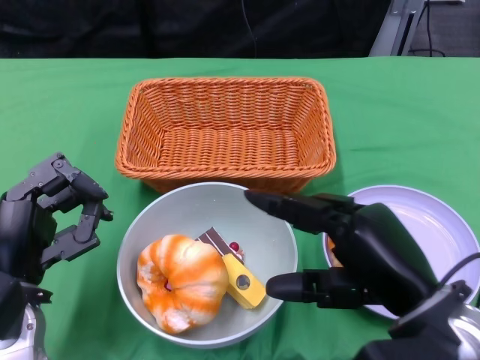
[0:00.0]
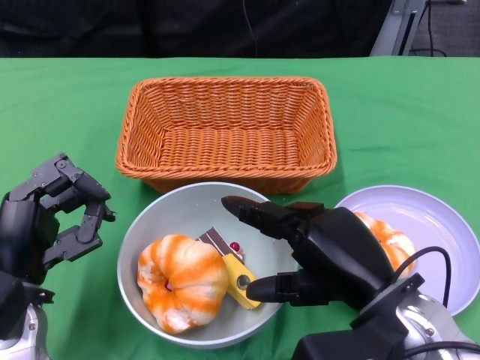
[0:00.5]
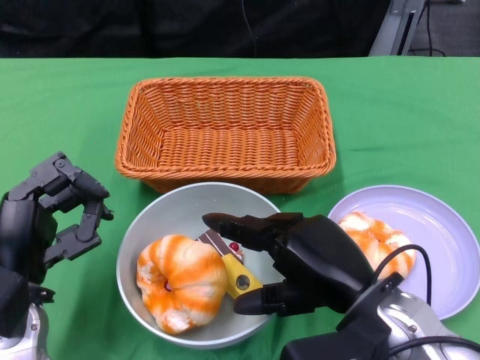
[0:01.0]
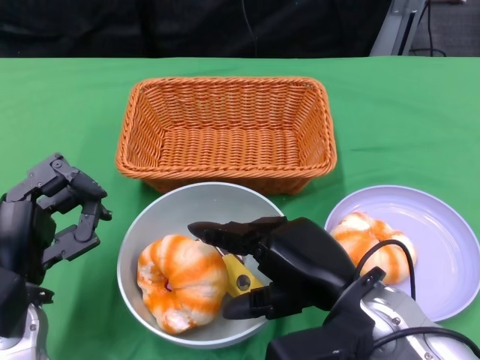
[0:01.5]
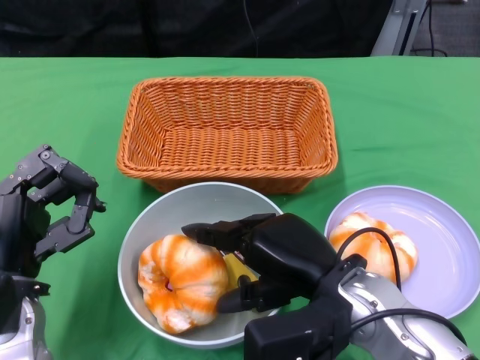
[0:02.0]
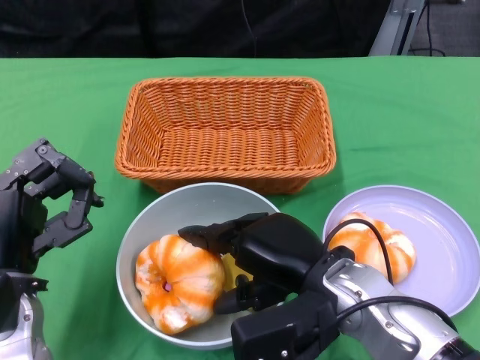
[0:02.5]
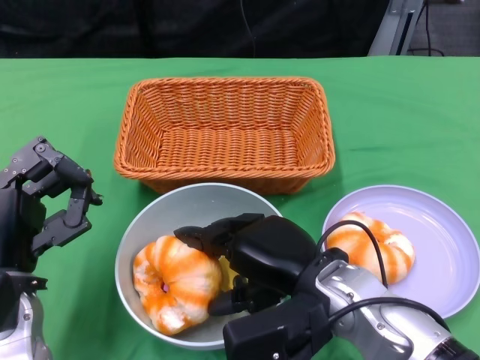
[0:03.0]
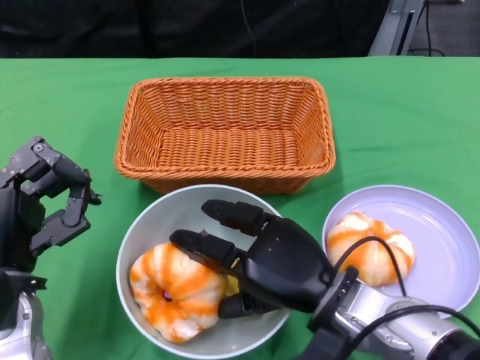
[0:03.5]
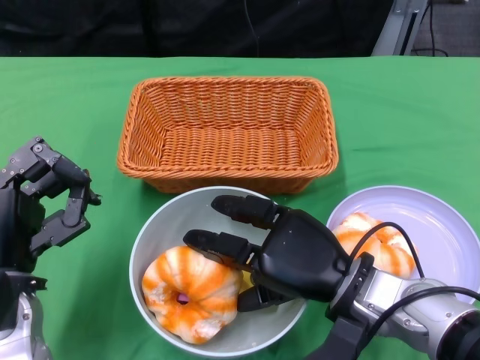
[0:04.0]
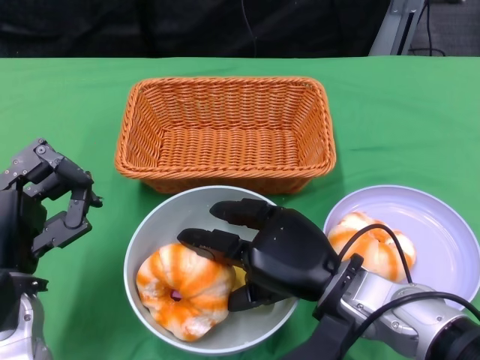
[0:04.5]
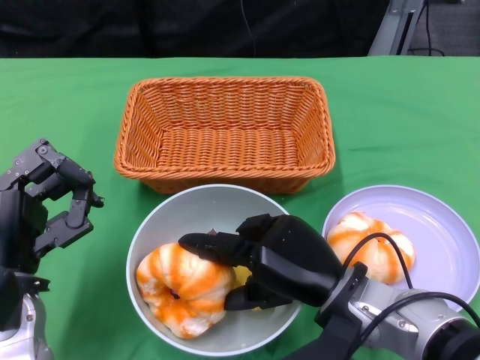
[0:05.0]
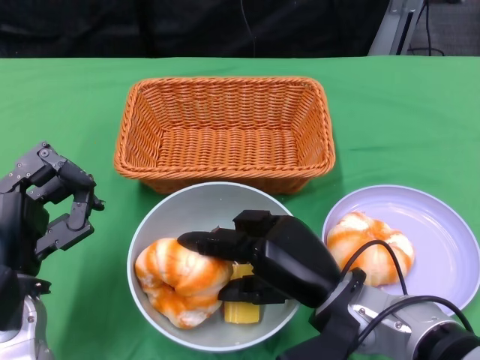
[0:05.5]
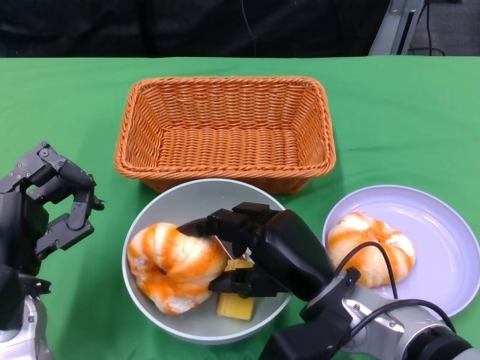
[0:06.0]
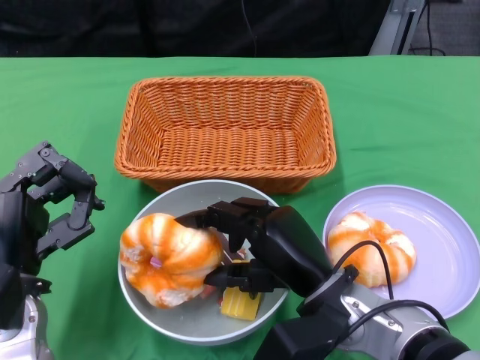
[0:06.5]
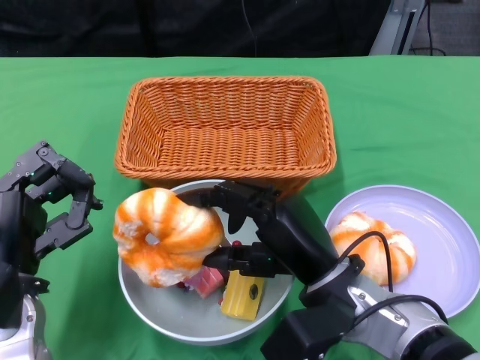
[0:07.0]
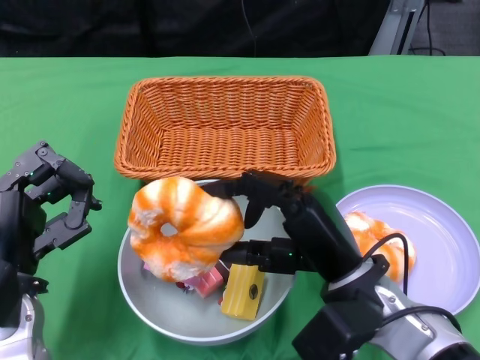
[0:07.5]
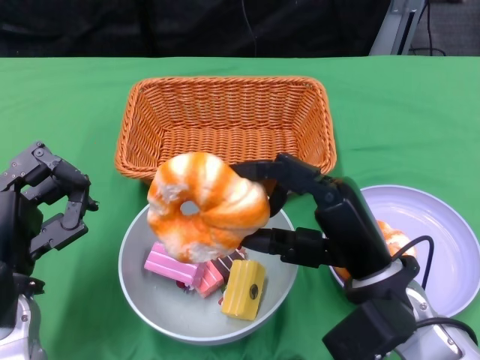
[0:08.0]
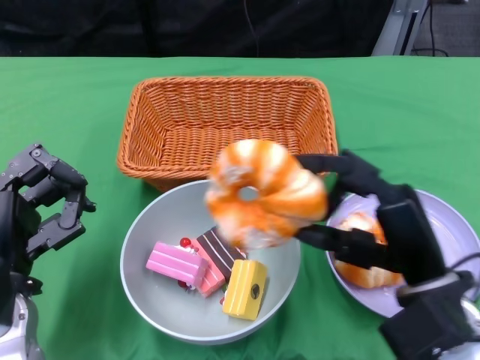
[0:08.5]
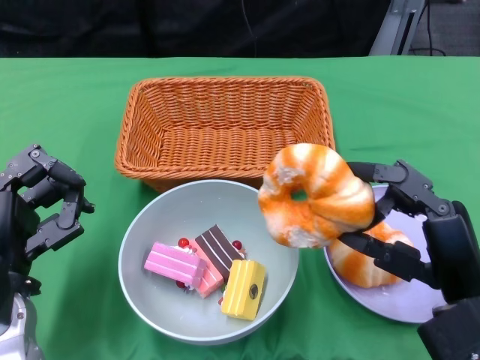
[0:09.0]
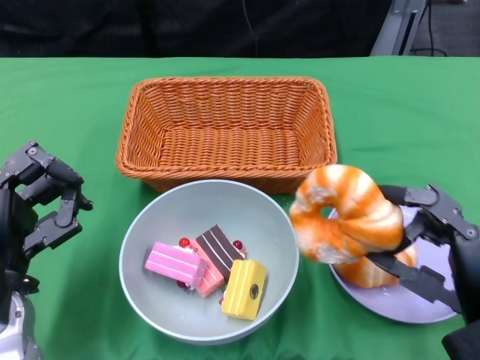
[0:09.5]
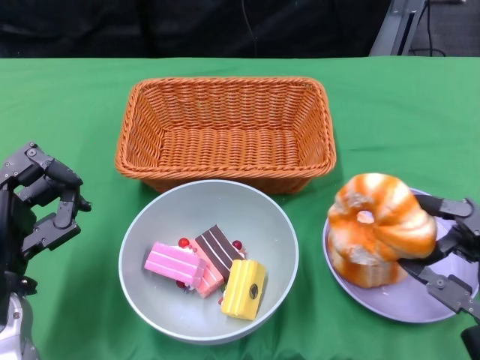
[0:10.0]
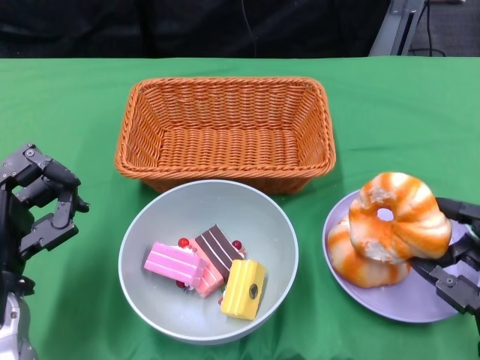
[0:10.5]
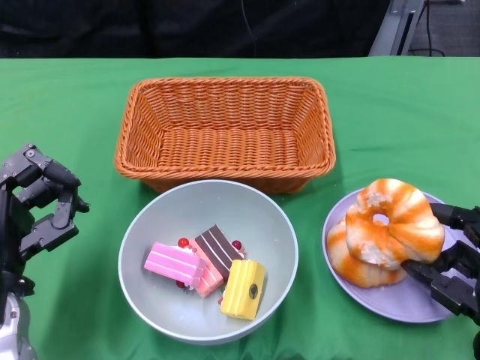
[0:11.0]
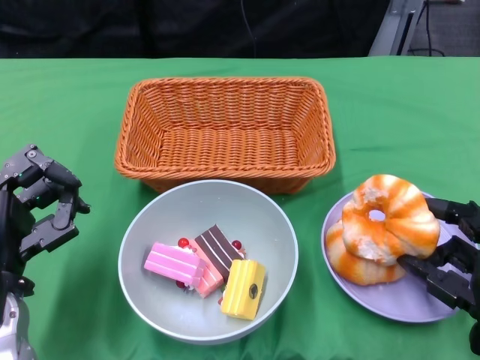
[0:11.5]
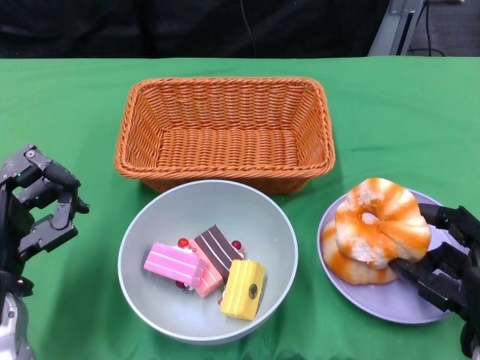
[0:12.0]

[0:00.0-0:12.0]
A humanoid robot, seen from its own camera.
0:00.0 to 0:02.0: The right hand heads to the left, covering approximately 5 cm.
0:06.0 to 0:08.0: The right hand ends up about 5 cm from where it was.
0:08.0 to 0:10.0: The right hand goes roughly 10 cm to the right and backward.

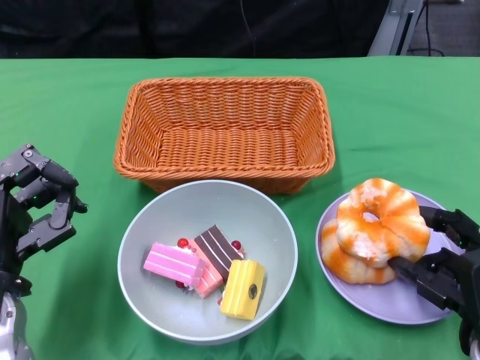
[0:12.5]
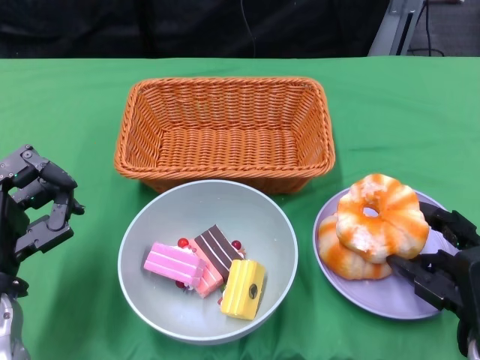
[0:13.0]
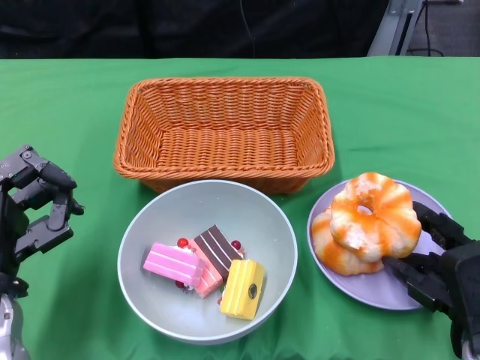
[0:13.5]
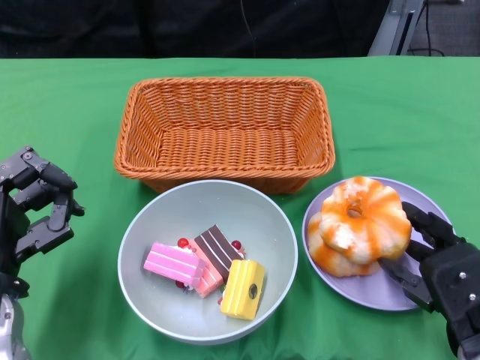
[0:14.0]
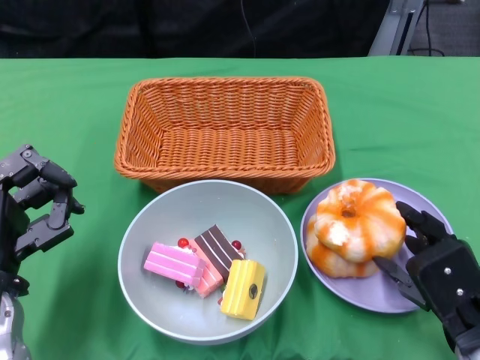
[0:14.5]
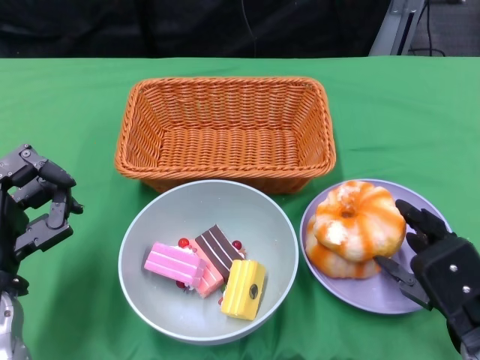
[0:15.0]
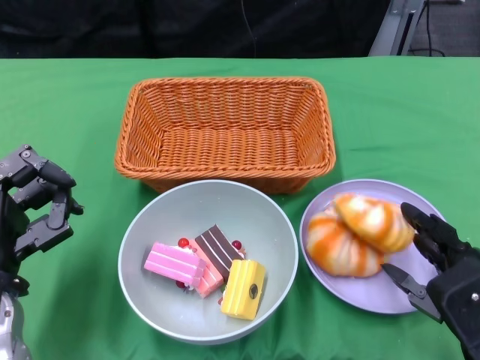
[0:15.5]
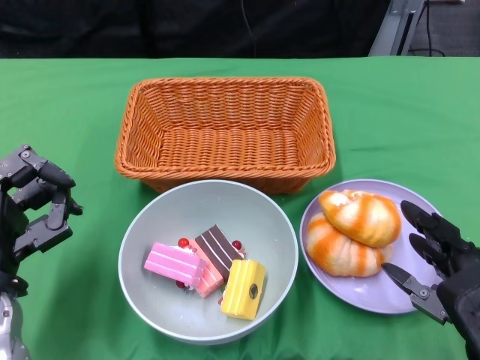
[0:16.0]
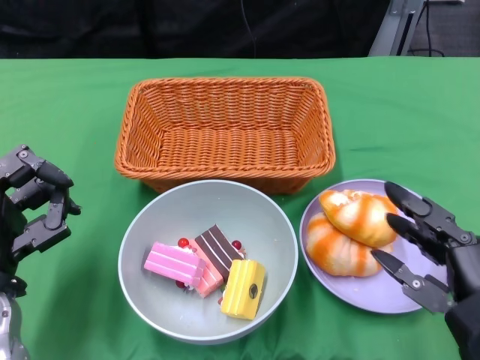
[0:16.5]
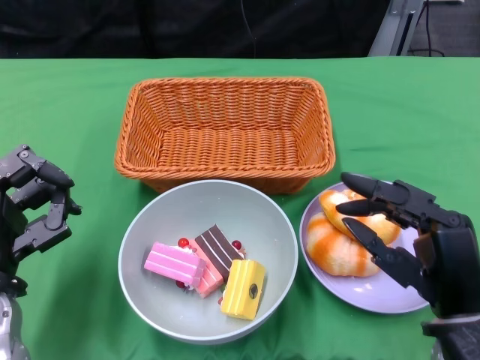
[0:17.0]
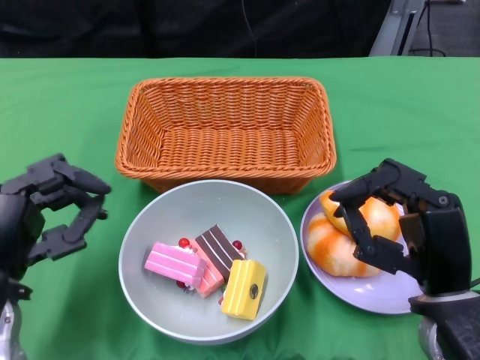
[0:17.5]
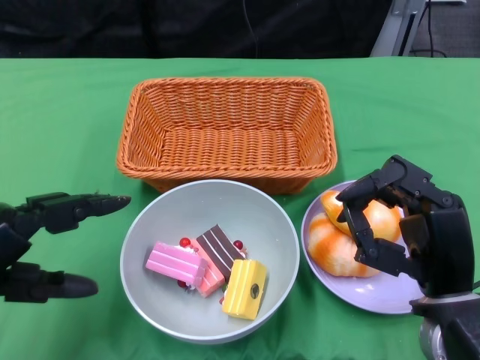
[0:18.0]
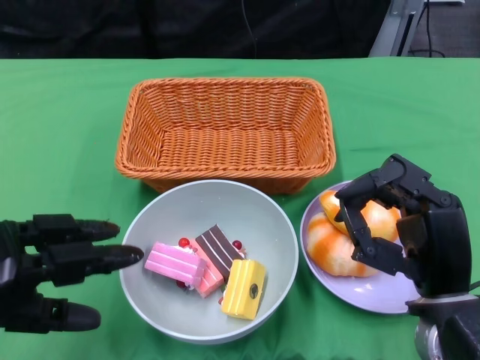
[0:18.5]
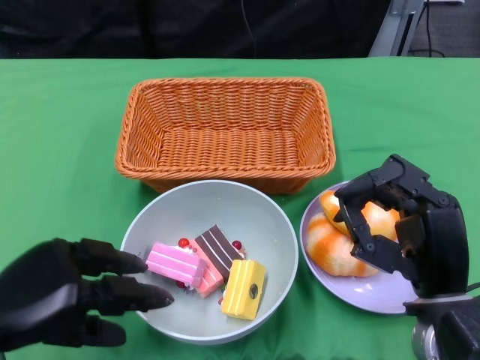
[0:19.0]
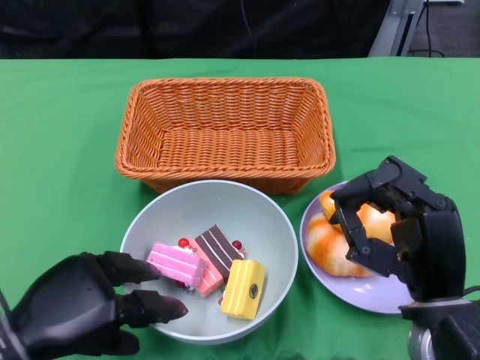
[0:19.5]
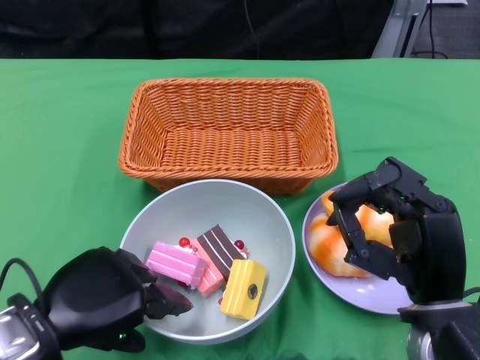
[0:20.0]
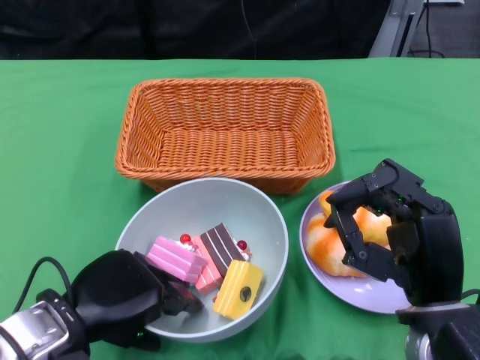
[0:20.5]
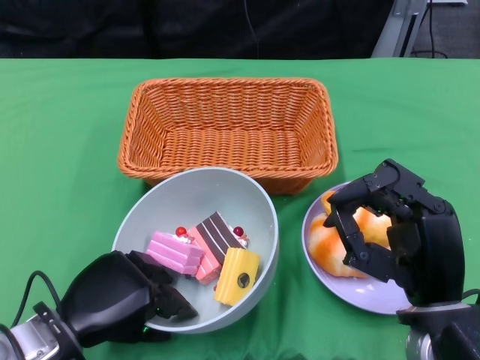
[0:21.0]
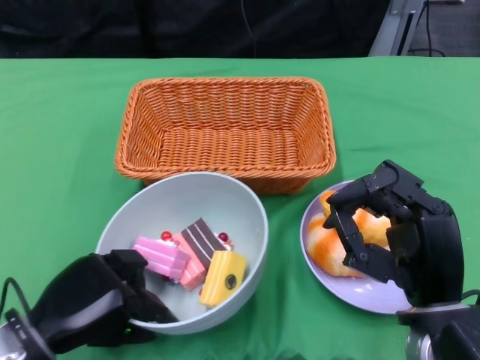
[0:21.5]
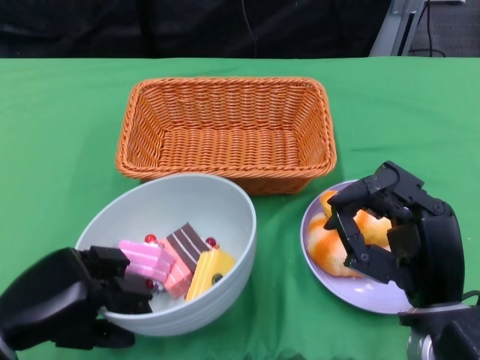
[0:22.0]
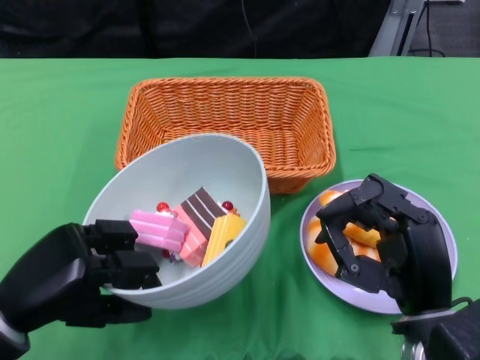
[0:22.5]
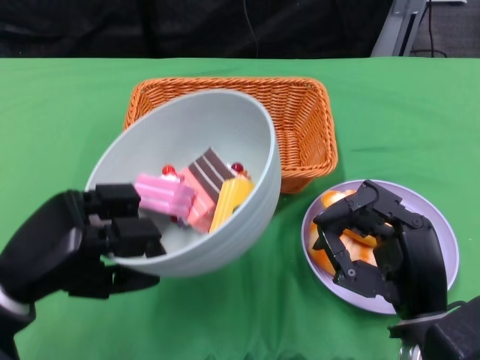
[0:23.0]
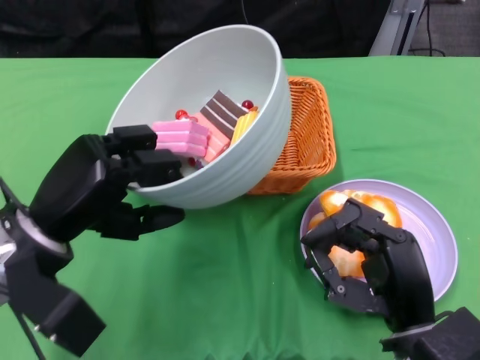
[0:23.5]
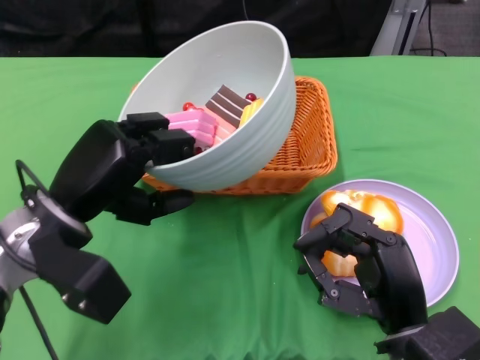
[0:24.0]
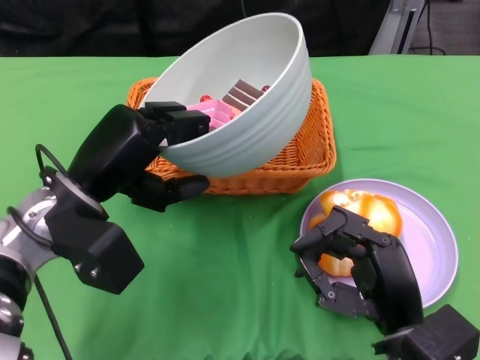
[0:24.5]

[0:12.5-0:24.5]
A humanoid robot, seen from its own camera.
Step, 0:12.5 to 0:15.5: Pick up the bread with the right gripper and place it on the plate.
Step, 0:16.0 to 0:21.0: Grasp the bowl with the left gripper.
0:12.5 to 0:14.5: There are only small adjustments of the hands.
0:16.5 to 0:18.5: The left hand heads backward, covering approximately 5 cm. Meanwhile the right hand changes place by approximately 5 cm.
0:18.5 to 0:20.5: The left hand shifts about 10 cm to the right.
0:22.5 to 0:24.5: The left hand is displaced forward and to the right by about 10 cm.

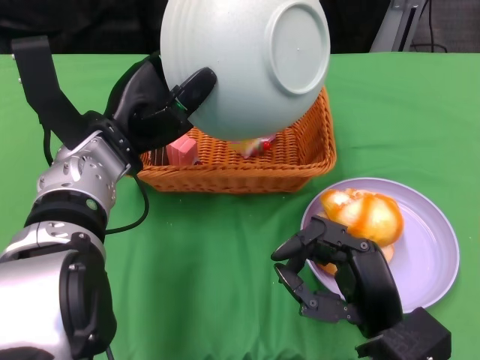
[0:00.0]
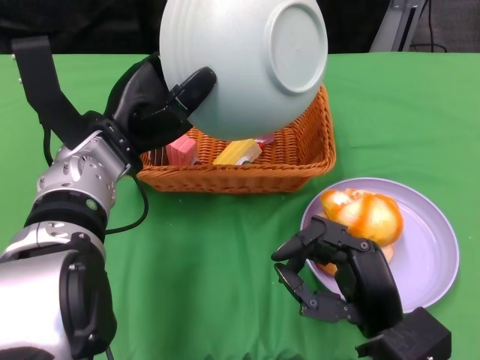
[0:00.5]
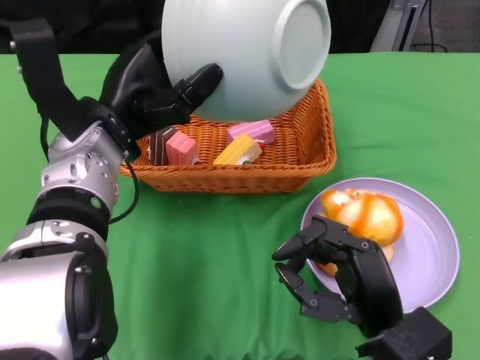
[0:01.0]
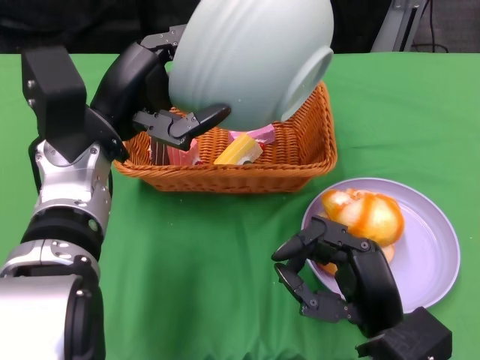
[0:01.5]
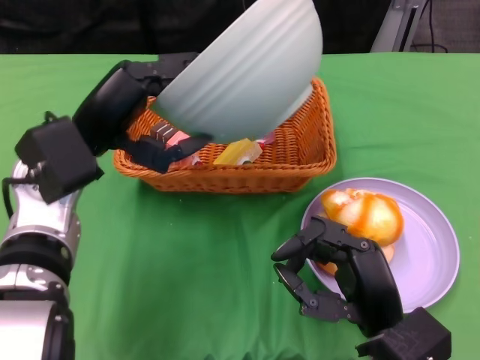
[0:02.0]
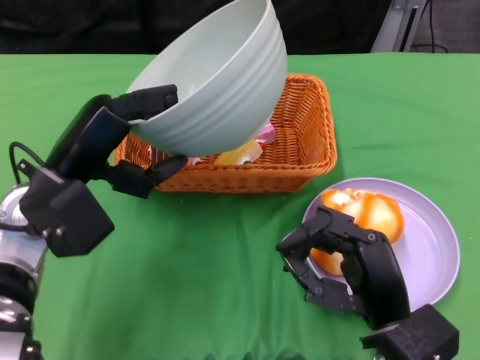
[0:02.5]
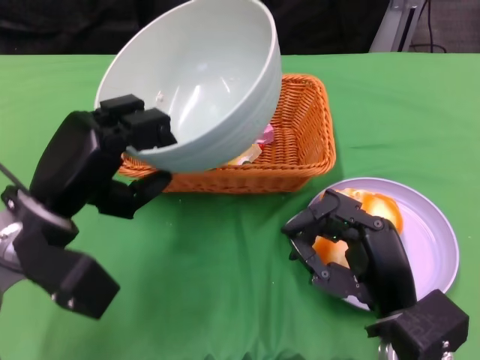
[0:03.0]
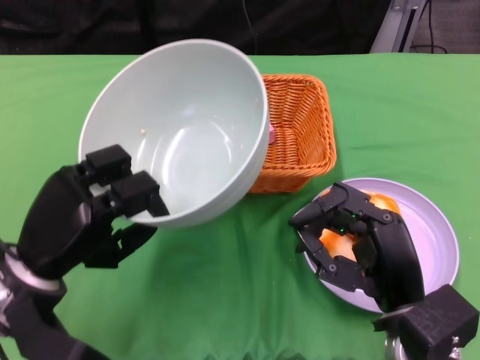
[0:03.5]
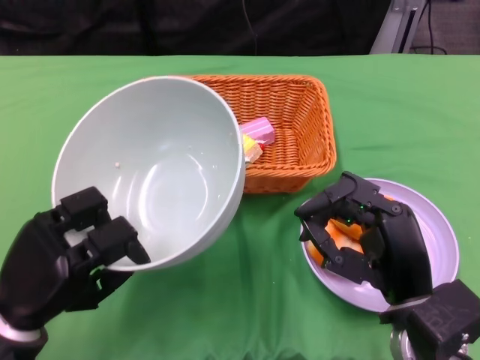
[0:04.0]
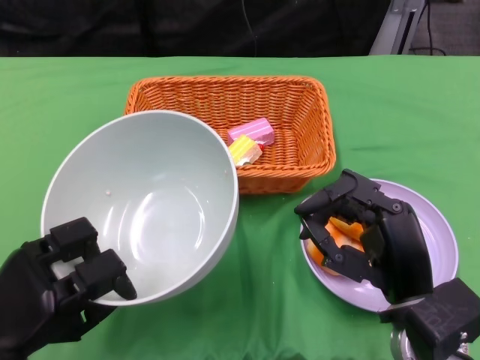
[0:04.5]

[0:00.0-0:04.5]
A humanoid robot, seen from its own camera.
0:02.0 to 0:04.5: The left hand moves backward, downward and to the left, approximately 20 cm.
